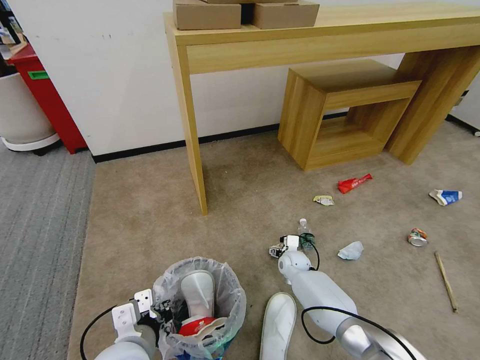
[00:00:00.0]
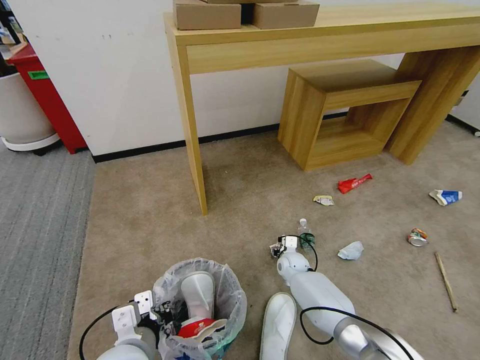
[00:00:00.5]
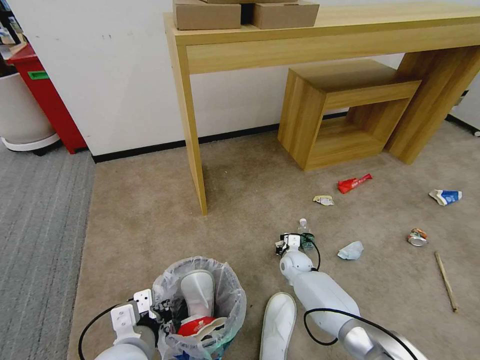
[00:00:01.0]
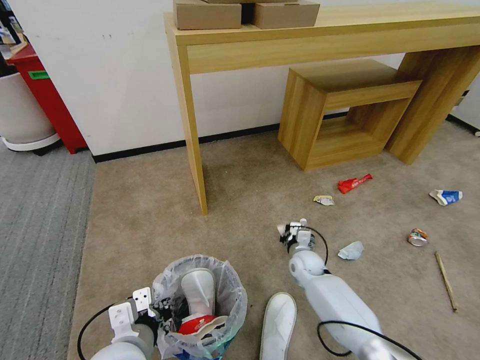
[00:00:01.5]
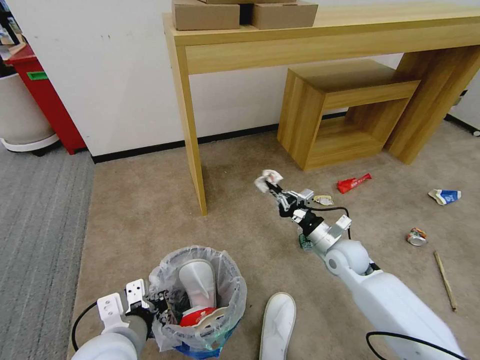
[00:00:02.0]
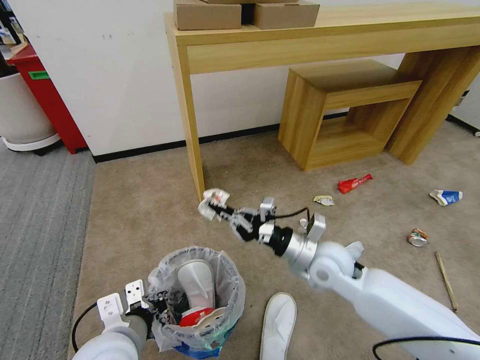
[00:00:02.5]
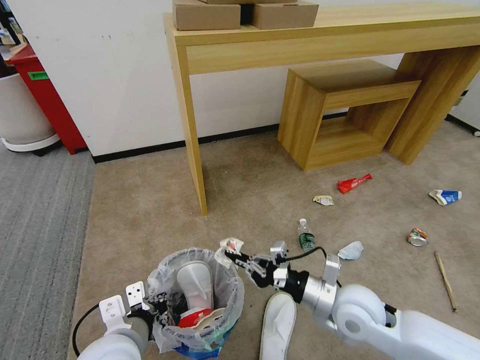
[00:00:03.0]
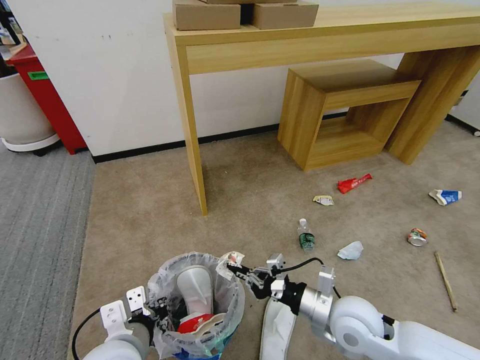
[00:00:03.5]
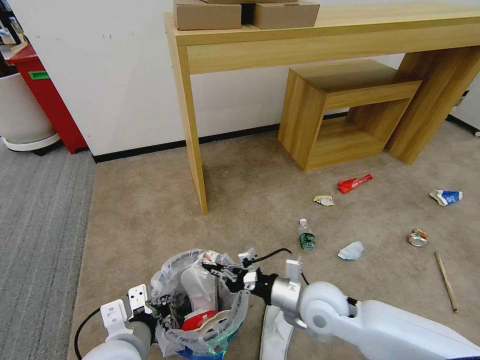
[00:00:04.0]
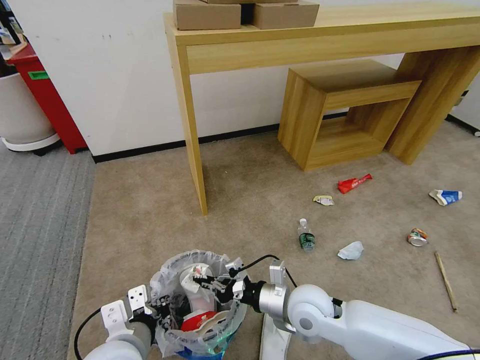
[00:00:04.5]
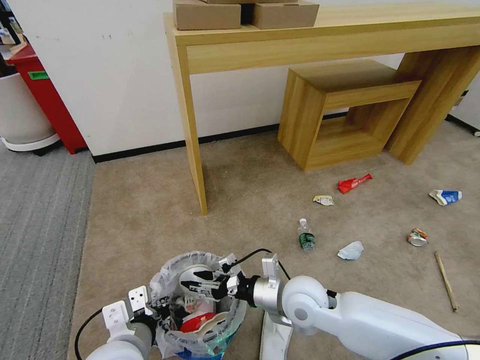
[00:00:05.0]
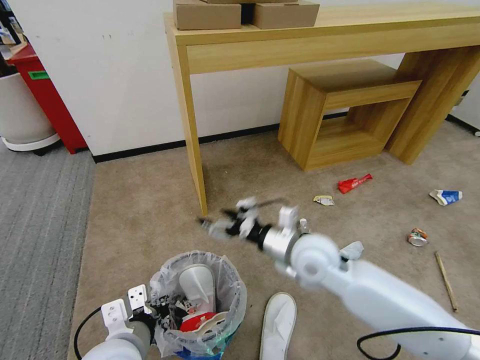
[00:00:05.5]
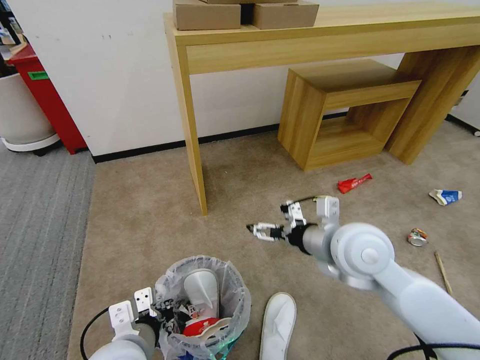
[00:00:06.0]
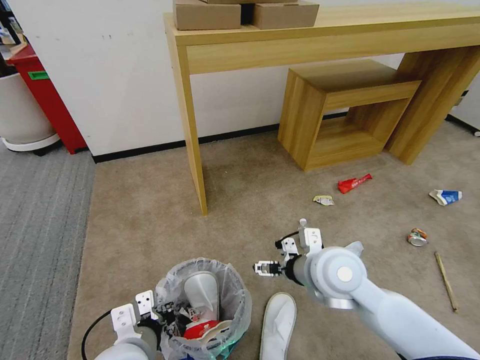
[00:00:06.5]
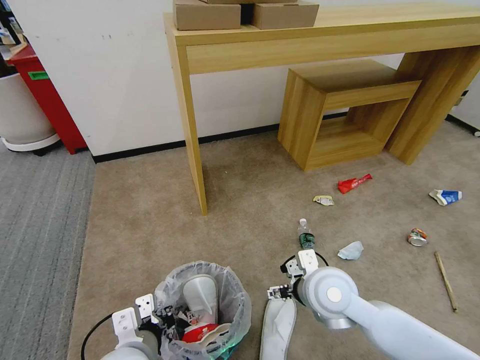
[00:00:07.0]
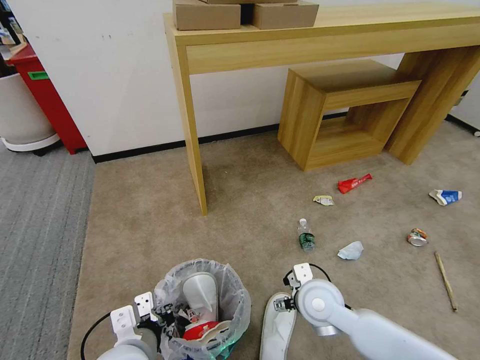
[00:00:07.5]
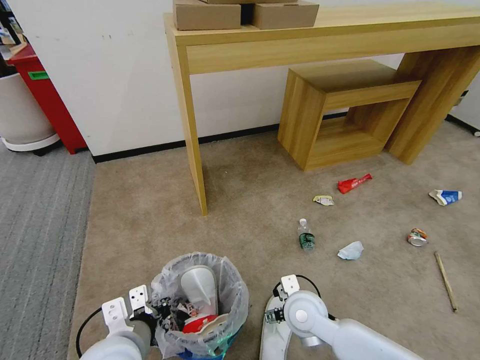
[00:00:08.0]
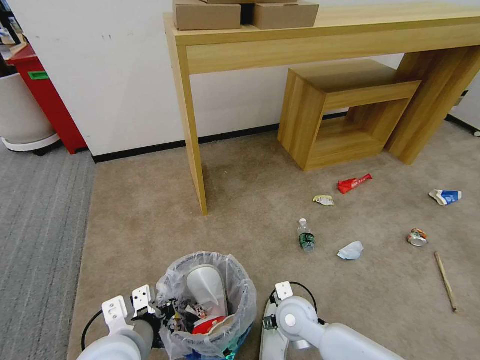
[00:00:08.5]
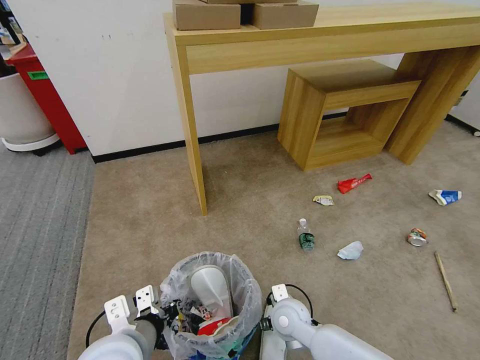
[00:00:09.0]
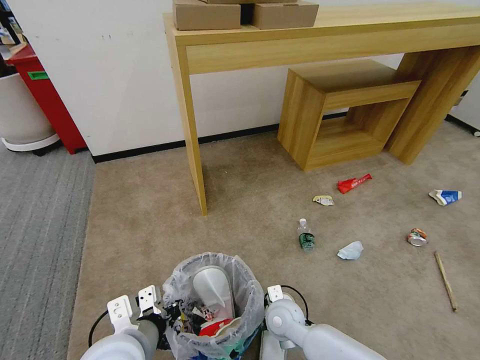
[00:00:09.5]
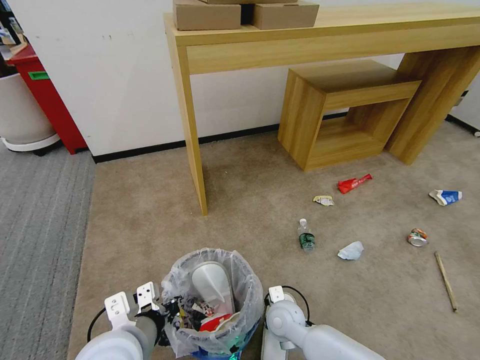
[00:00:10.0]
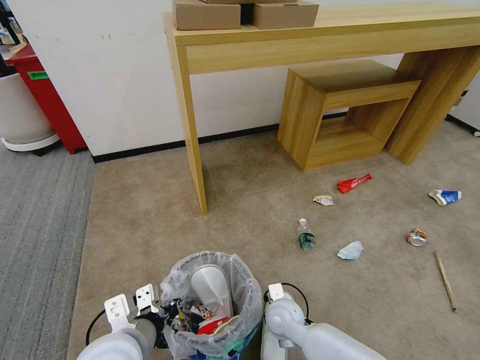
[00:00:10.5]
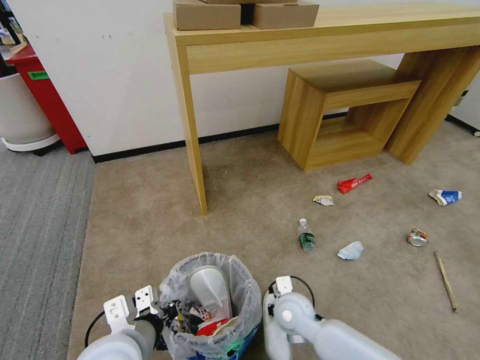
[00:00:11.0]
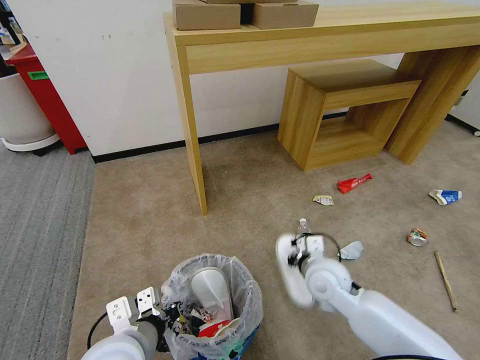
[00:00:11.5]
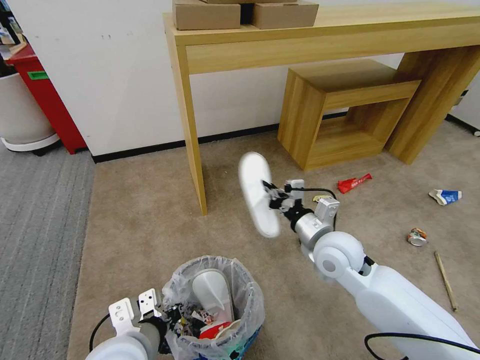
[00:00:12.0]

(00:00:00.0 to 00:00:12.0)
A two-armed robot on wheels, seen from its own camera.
Task of the whole recording: Pick up the trash bin and place the garbage on the floor into it.
00:00:00.0 - 00:00:02.0: The right gripper is displaced upward, to the right and backward by some 20 cm, and closes up.
00:00:02.0 - 00:00:04.0: The right gripper heads backward and to the left, covering roughly 15 cm.
00:00:04.0 - 00:00:06.0: The right gripper travels upward by about 15 cm, and opens its fingers.
00:00:06.0 - 00:00:08.0: The right gripper goes about 20 cm downward.
00:00:08.0 - 00:00:10.0: The right gripper moves downward, approximately 10 cm, and closes its fingers.
00:00:10.0 - 00:00:12.0: The right gripper moves upward, some 20 cm, and closes up.

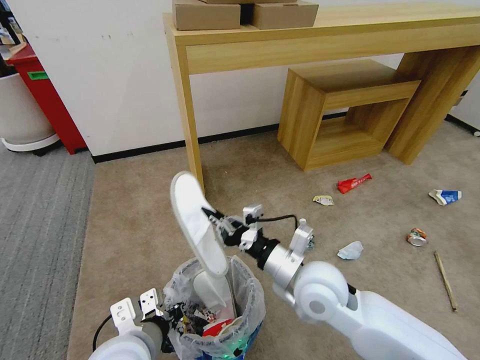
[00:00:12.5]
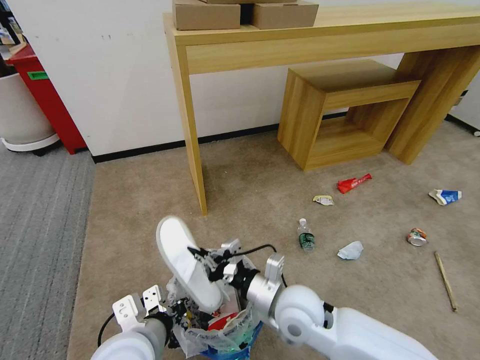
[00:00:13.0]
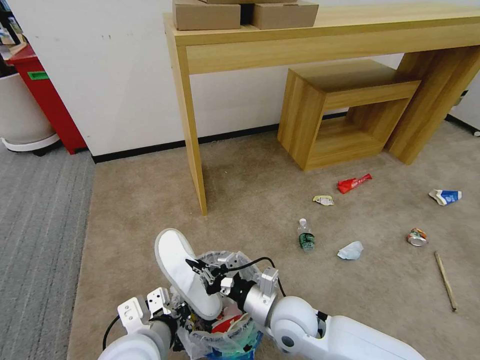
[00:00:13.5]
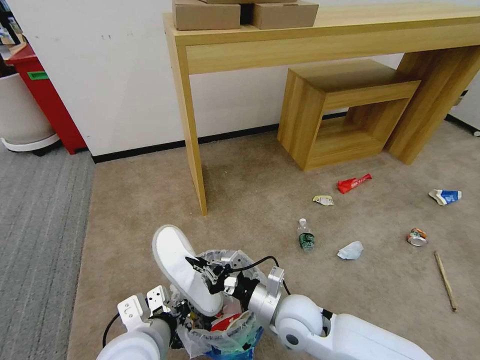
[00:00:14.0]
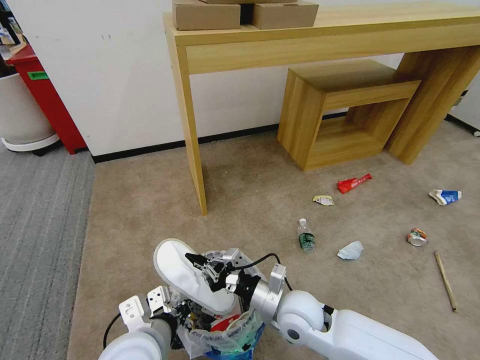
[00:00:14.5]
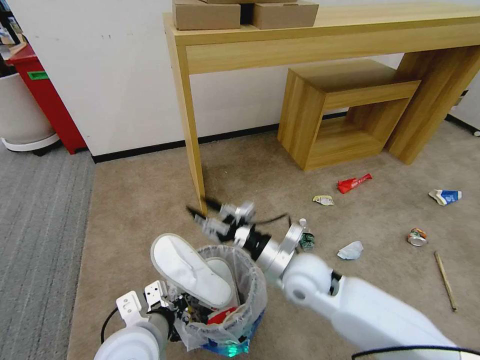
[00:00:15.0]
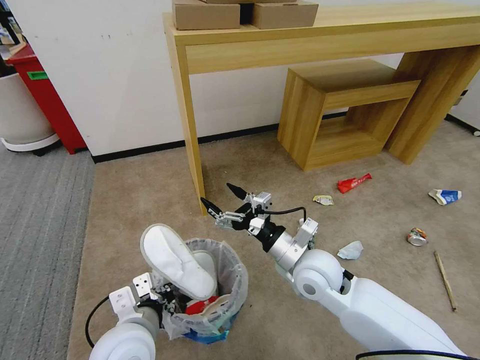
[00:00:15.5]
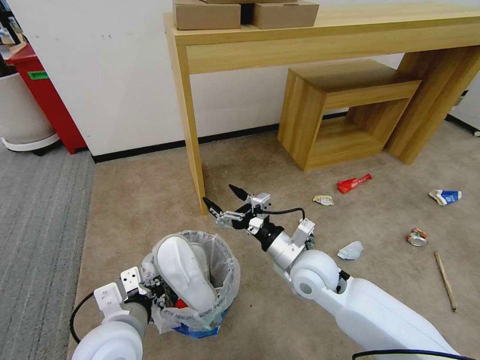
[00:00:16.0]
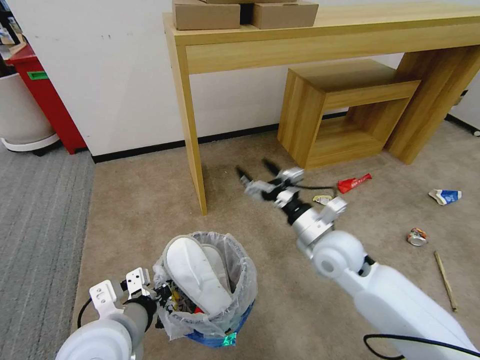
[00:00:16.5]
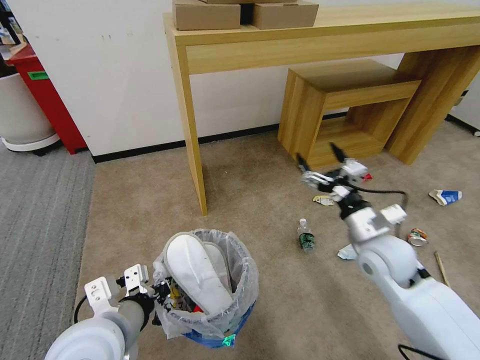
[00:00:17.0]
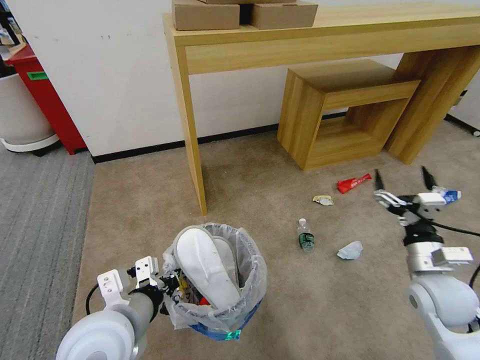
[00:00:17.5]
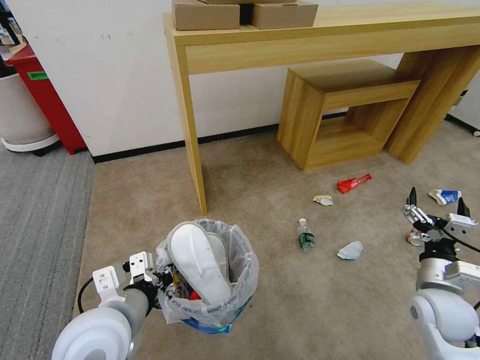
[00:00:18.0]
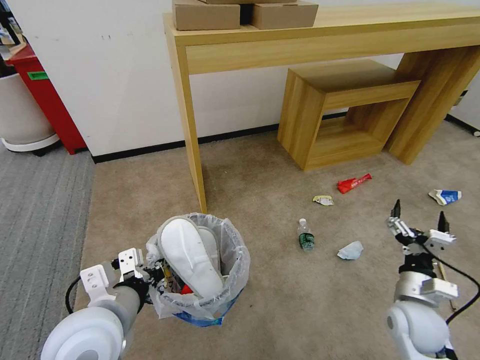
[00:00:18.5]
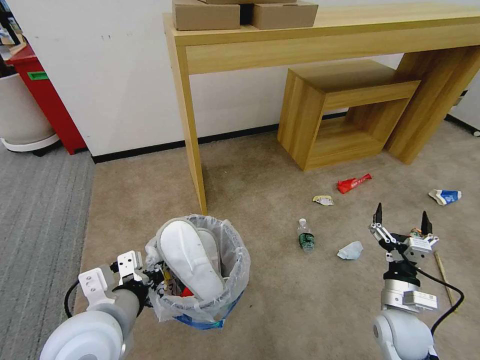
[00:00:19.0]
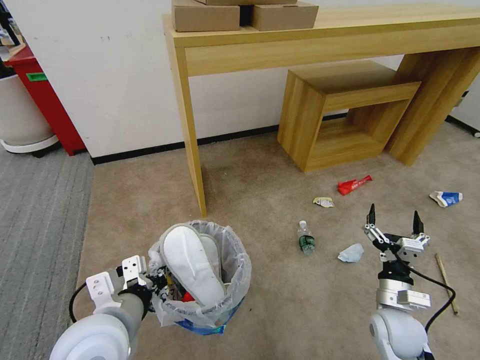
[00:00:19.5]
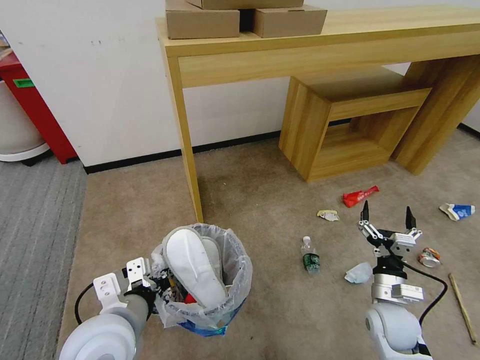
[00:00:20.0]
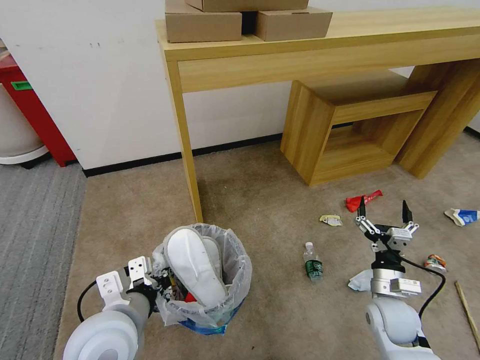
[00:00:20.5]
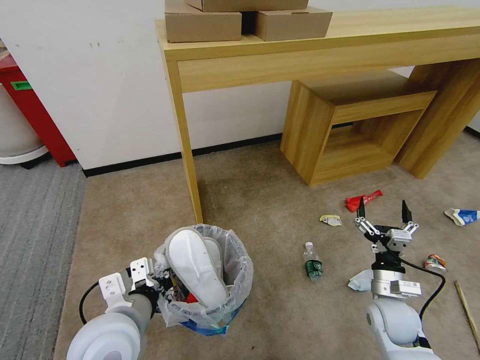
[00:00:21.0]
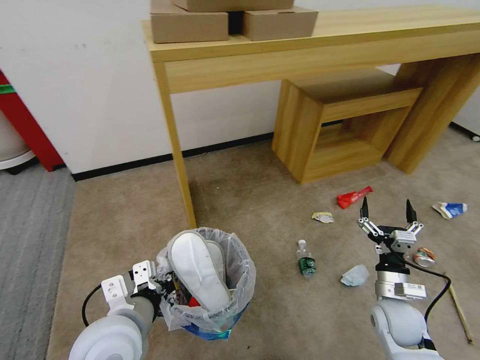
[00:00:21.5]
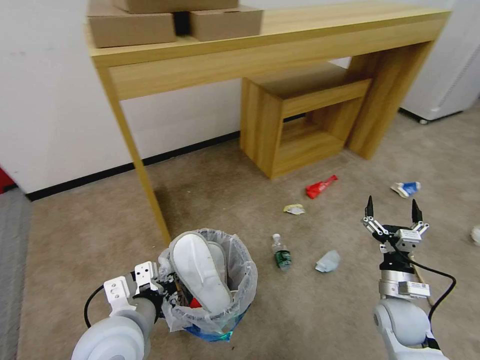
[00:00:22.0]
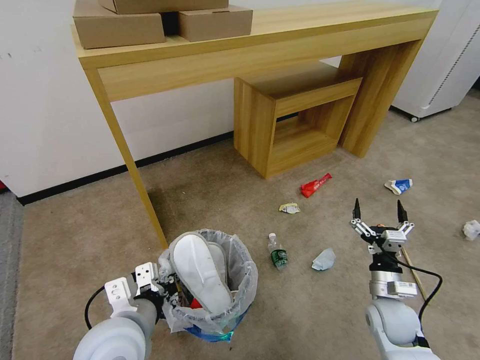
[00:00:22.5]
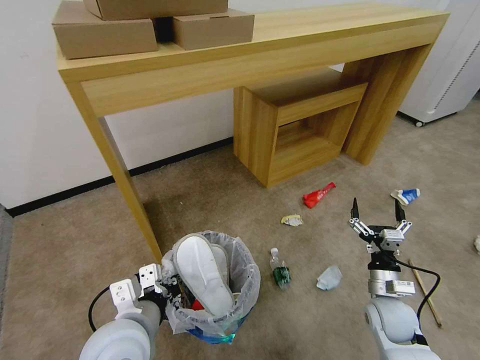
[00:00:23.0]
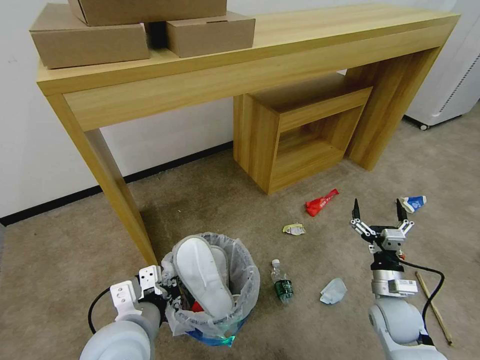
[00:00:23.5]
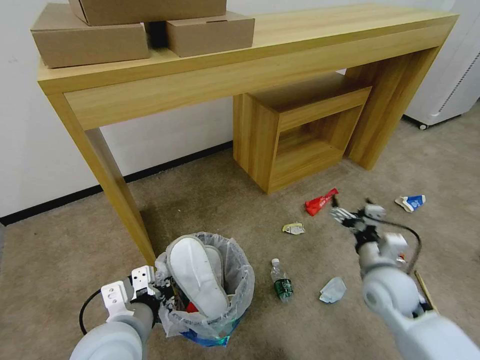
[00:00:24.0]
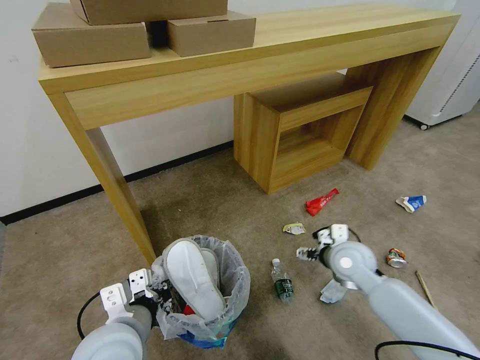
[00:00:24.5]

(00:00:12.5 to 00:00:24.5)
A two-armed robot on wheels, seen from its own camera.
Task of the whole recording: Pick up the trash bin and place the garbage on the floor into it.
00:00:12.5 - 00:00:14.5: The right gripper shifts approximately 10 cm downward.
00:00:14.5 - 00:00:16.5: The left gripper moves about 5 cm; the right gripper heads upward, forward and to the right, covering roughly 15 cm, and opens.
00:00:16.5 - 00:00:18.5: The right gripper moves to the right, downward and backward, some 20 cm.
00:00:22.5 - 00:00:24.5: The right gripper heads forward, to the left and upward, covering some 15 cm.

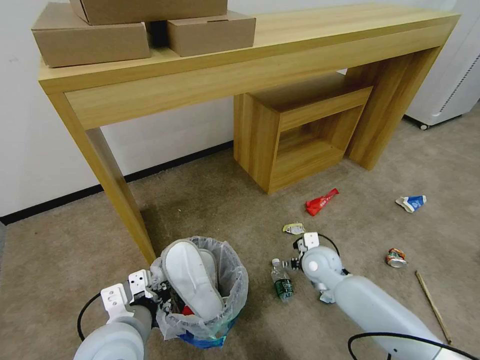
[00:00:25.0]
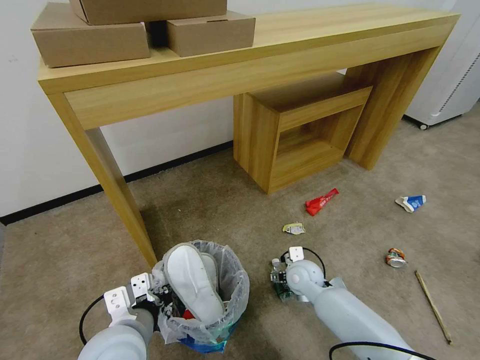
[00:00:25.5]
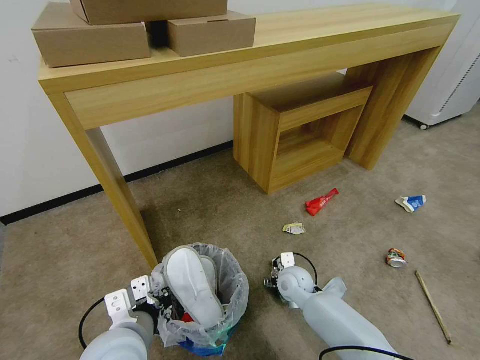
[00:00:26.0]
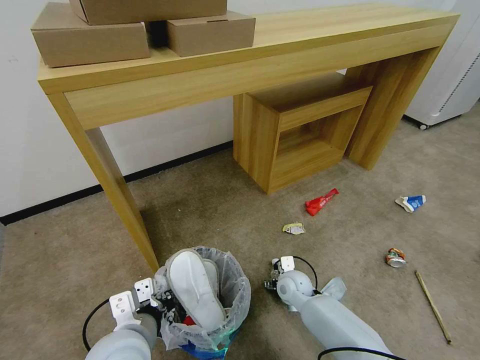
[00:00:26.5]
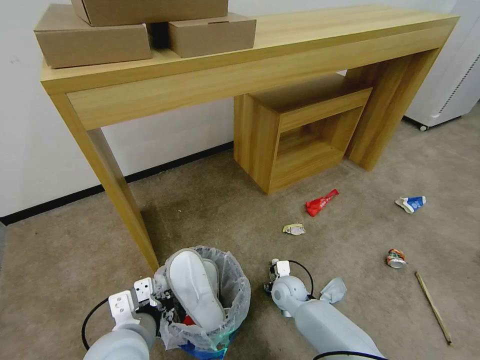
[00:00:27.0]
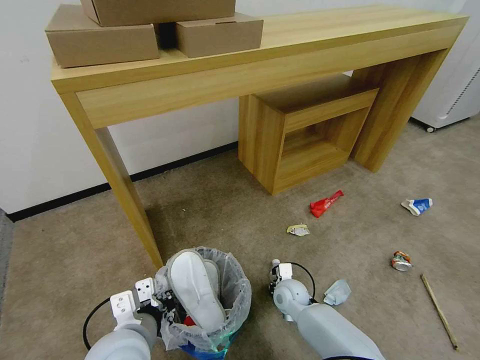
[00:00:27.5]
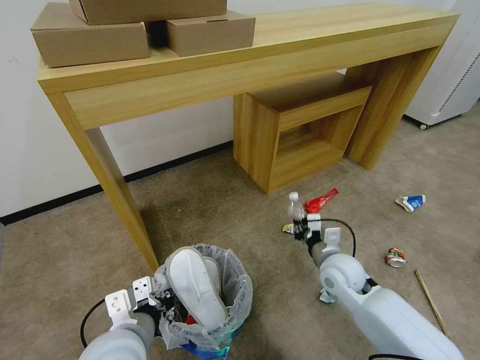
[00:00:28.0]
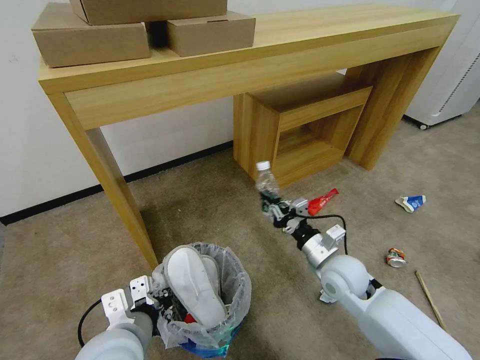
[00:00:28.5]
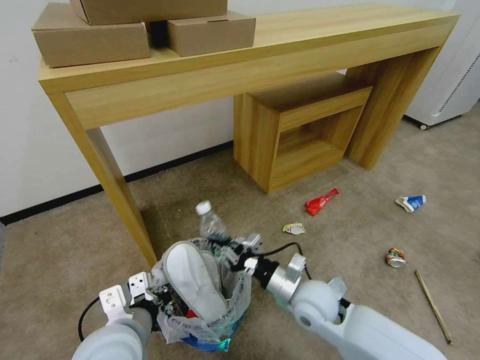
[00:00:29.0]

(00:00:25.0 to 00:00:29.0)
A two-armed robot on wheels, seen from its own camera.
Task of the whole recording: Pick up the trash bin and place the garbage on the floor into it.
00:00:25.0 - 00:00:27.0: The right gripper goes approximately 15 cm downward and to the left.
00:00:27.0 - 00:00:29.0: The right gripper moves upward and backward, about 15 cm, and closes its fingers.
